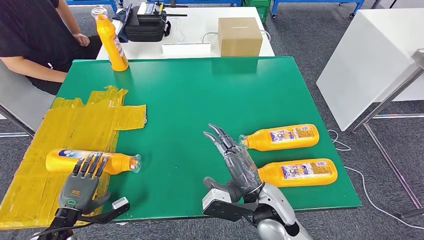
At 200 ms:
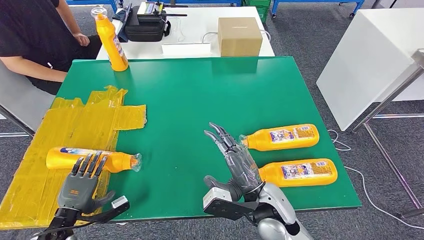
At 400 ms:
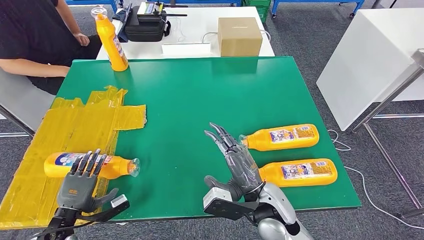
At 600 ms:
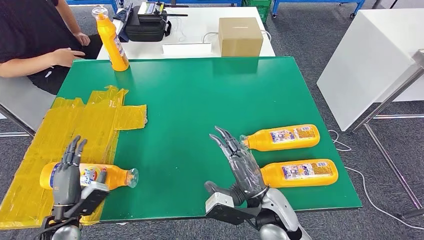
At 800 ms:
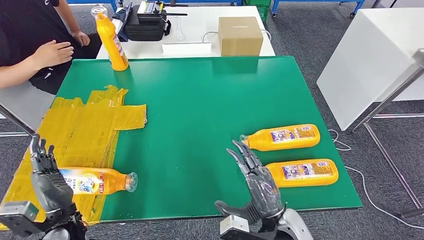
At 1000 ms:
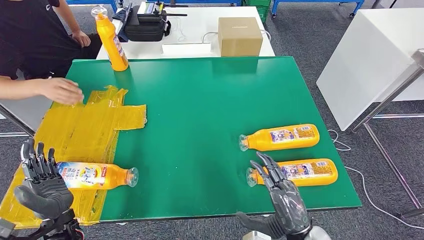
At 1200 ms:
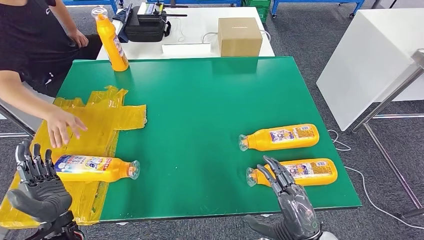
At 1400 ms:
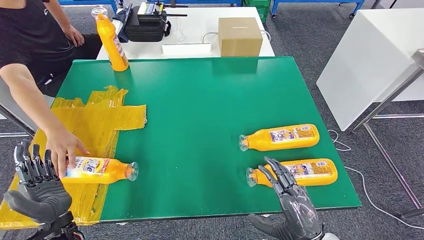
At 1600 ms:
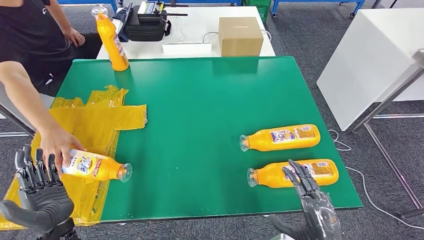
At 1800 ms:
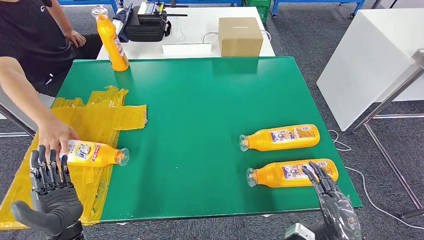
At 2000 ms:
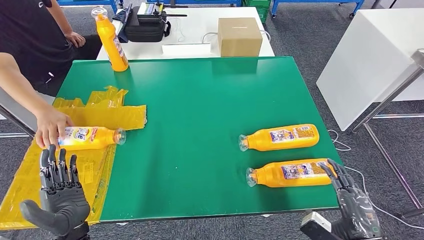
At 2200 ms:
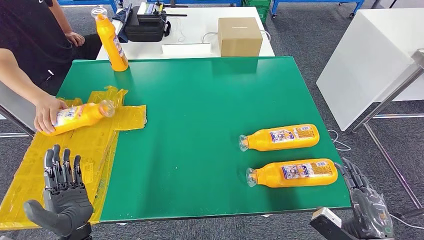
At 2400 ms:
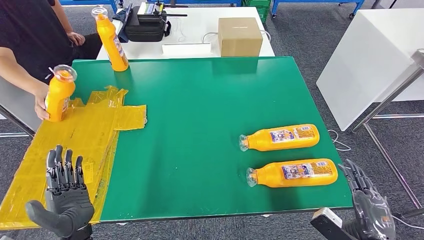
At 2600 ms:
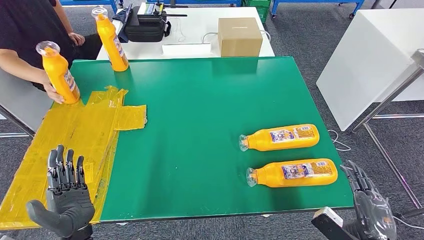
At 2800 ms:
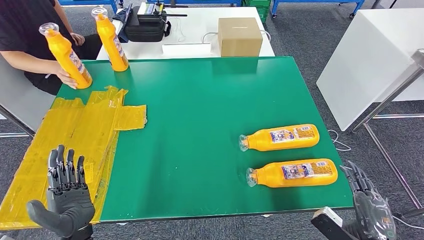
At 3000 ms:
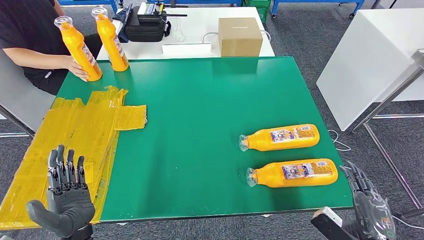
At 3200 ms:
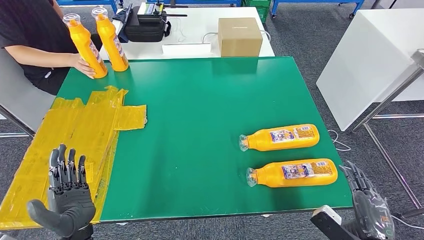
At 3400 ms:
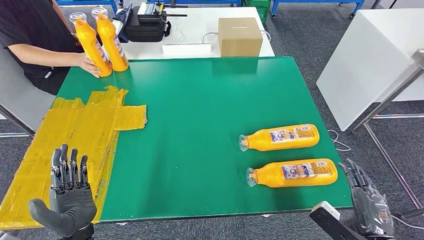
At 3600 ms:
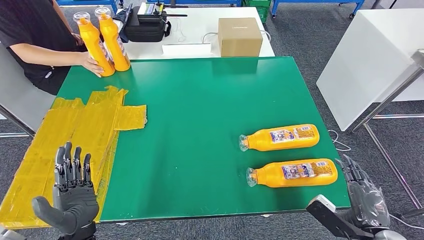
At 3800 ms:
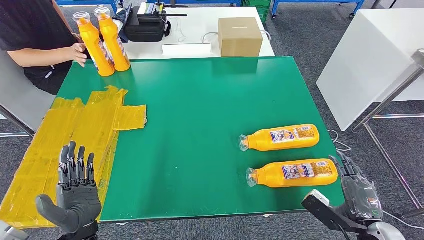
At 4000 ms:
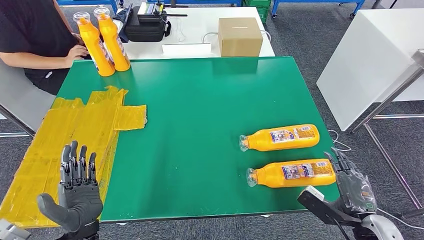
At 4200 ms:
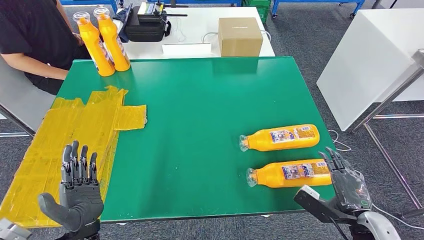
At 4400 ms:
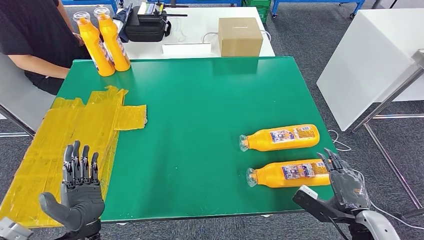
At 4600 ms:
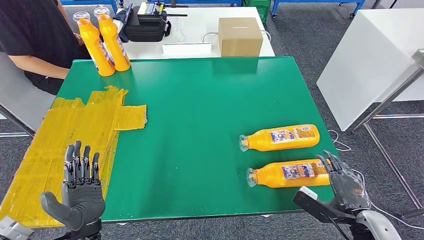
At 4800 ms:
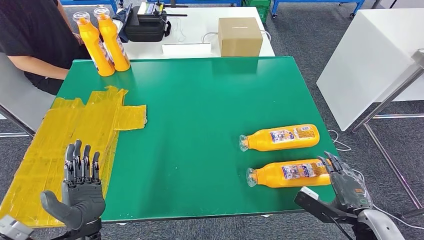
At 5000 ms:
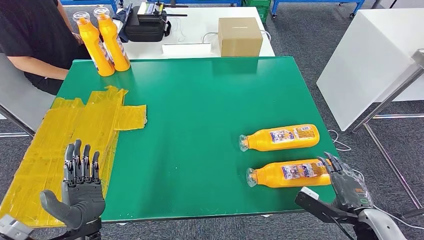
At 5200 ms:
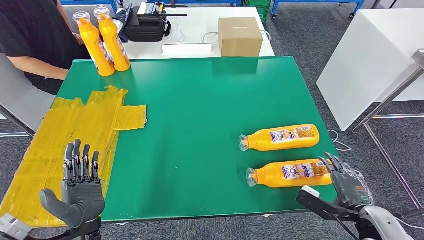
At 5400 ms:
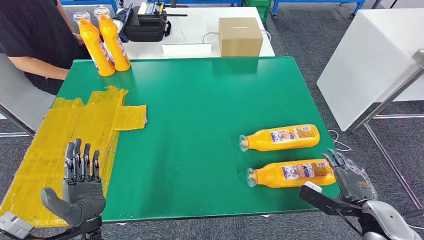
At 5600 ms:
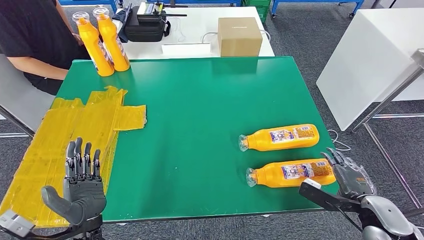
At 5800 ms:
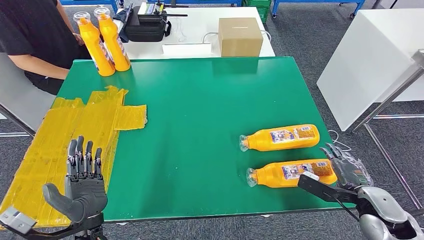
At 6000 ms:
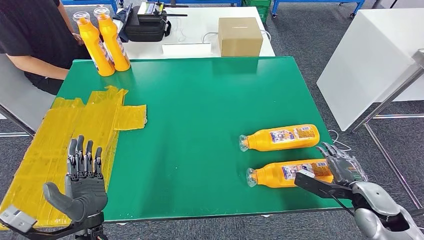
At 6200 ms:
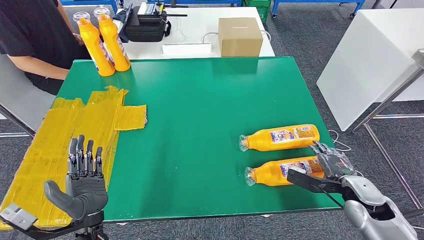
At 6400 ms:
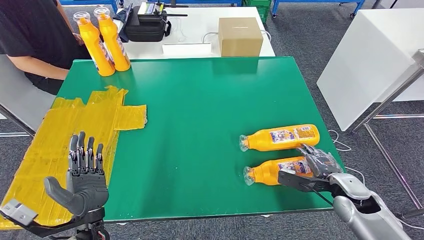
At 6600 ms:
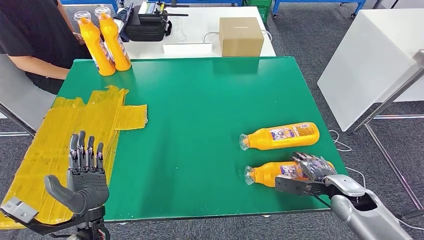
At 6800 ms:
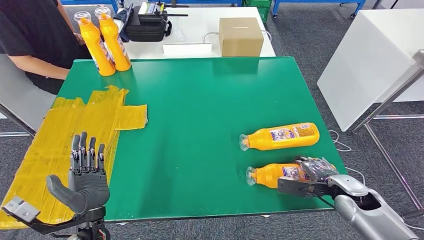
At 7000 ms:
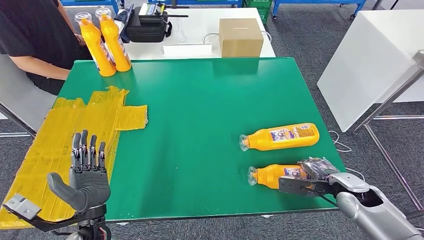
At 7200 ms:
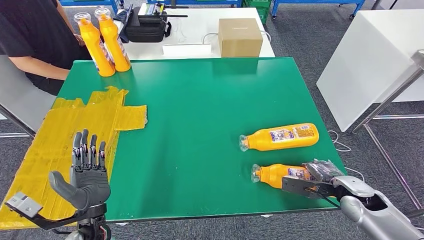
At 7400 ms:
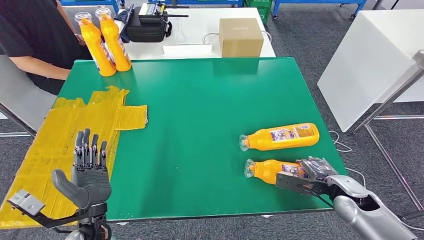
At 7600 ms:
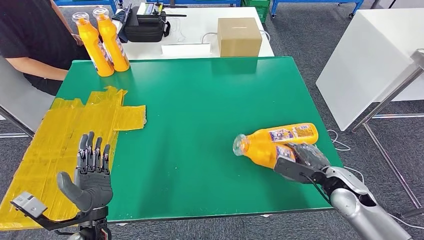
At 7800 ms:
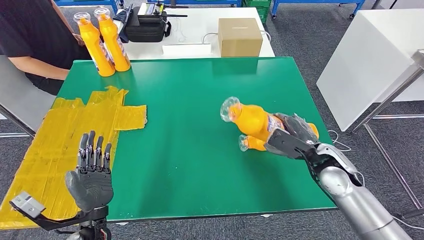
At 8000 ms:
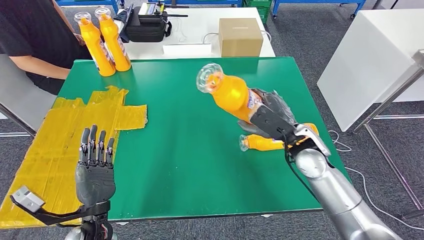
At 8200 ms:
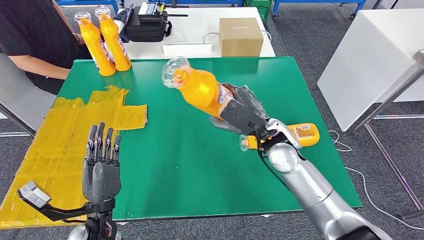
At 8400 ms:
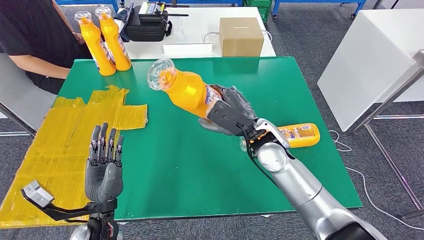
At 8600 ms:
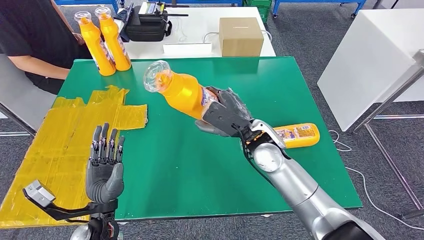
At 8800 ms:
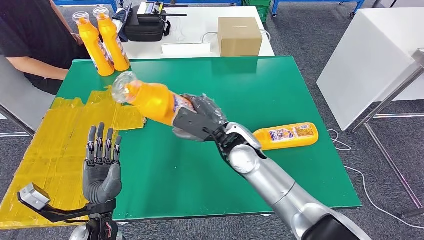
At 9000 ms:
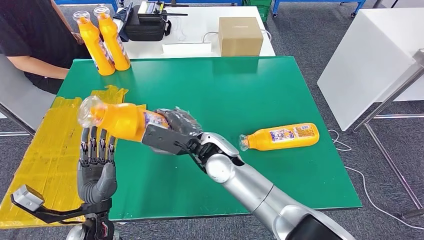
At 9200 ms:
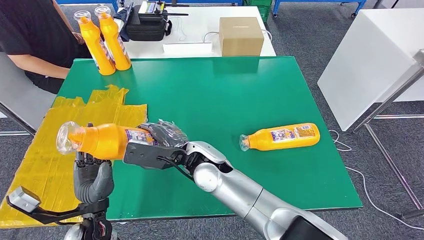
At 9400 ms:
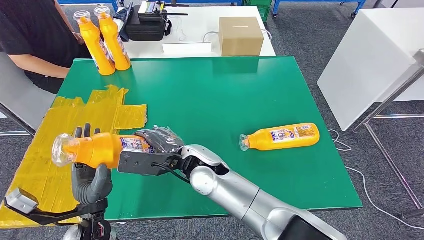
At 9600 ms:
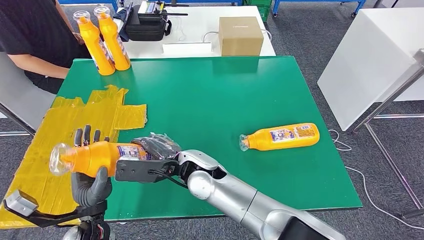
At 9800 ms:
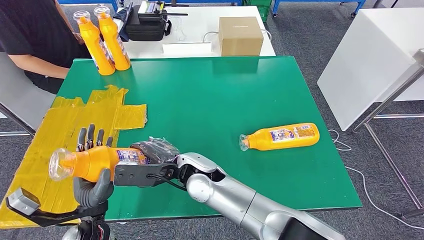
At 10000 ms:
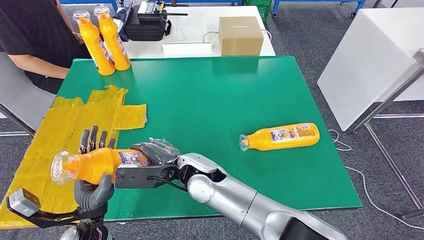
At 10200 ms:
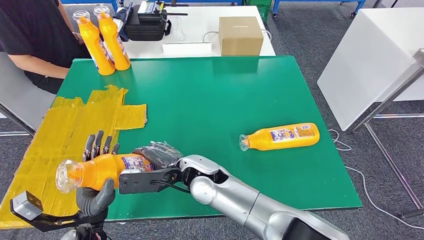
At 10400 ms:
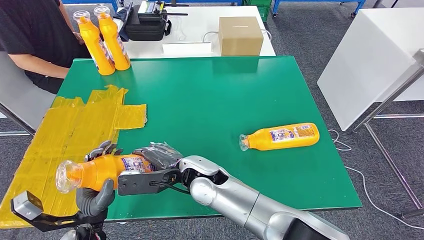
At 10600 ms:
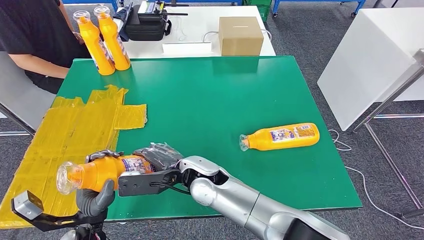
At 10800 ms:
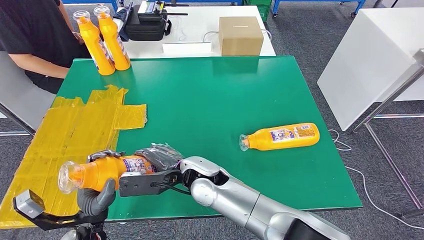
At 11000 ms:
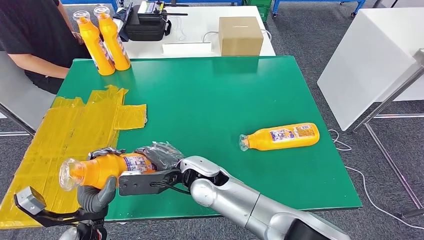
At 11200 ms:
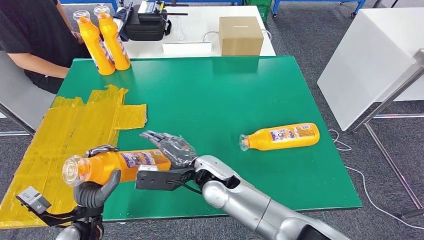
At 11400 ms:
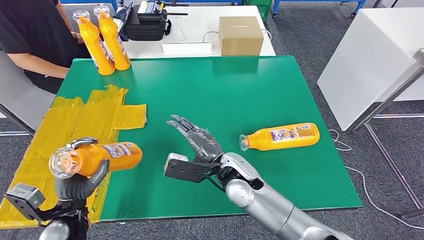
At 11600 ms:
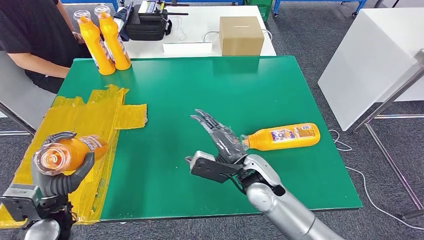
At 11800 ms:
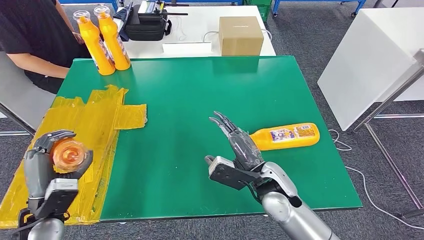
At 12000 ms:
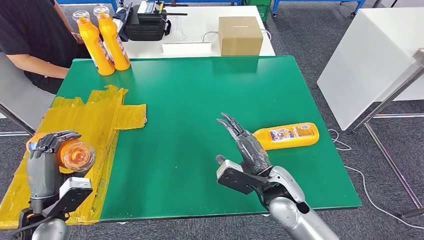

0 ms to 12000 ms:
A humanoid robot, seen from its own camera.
Step, 800 ms to 9600 ms: Pick up the fast-moving consumer goods bottle from the table.
0 ms to 1600 ms: The right hand shifts about 20 cm to the right and backward. Meanwhile the left hand moves to the right and upward, about 10 cm.
1600 ms to 3000 ms: The right hand travels to the right by about 10 cm.
3000 ms to 4400 ms: The right hand goes roughly 5 cm forward.
4400 ms to 6000 ms: The right hand moves forward, roughly 5 cm.
6000 ms to 7600 ms: The right hand moves to the left, approximately 5 cm.
9000 ms to 10400 ms: The right hand moves some 5 cm.
10400 ms to 12000 ms: The left hand travels to the left by some 10 cm, while the right hand shifts about 20 cm to the right.

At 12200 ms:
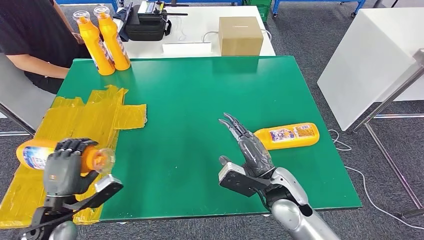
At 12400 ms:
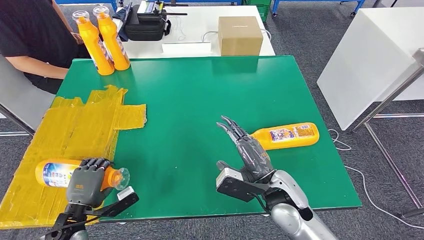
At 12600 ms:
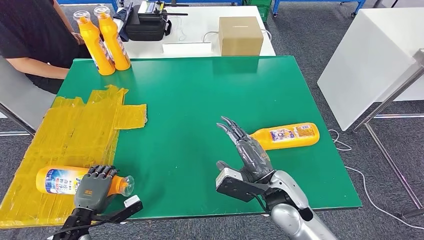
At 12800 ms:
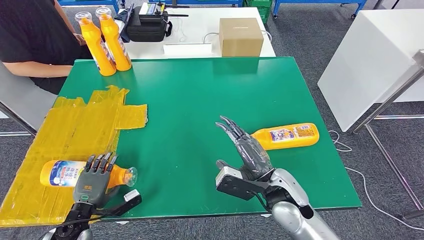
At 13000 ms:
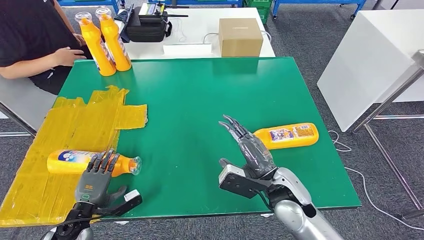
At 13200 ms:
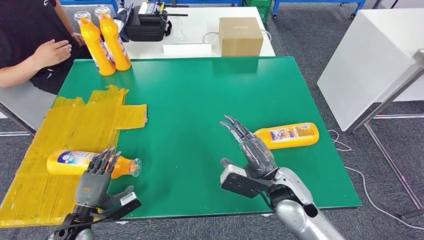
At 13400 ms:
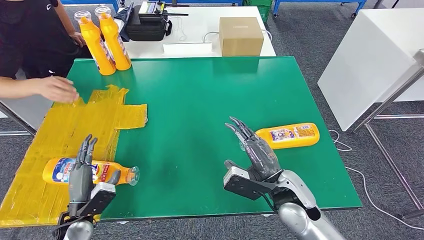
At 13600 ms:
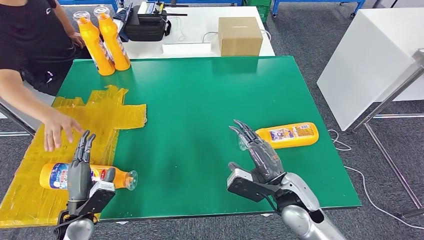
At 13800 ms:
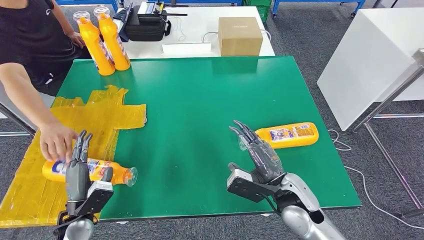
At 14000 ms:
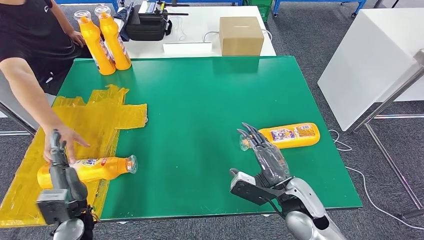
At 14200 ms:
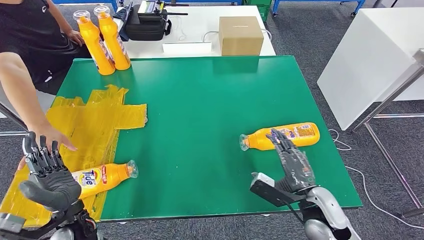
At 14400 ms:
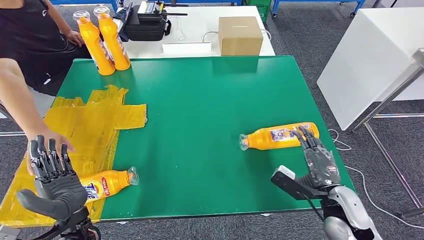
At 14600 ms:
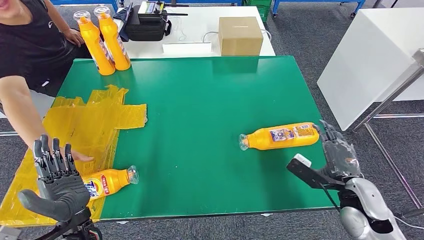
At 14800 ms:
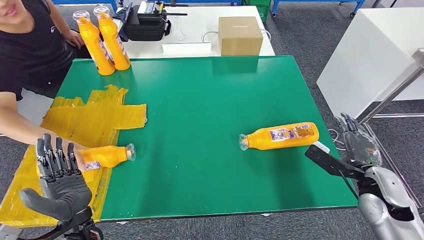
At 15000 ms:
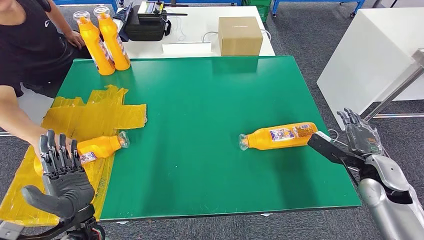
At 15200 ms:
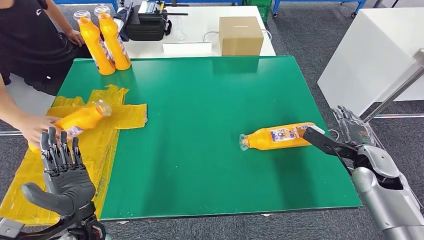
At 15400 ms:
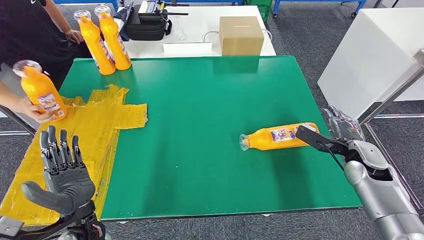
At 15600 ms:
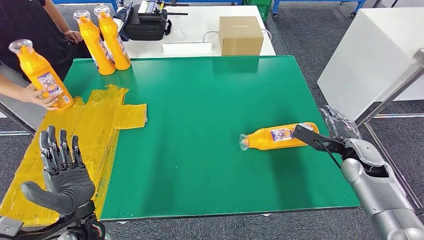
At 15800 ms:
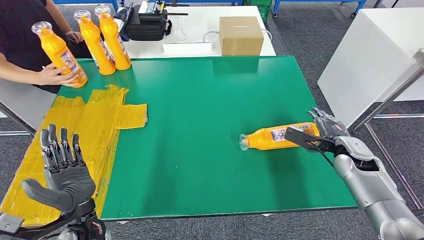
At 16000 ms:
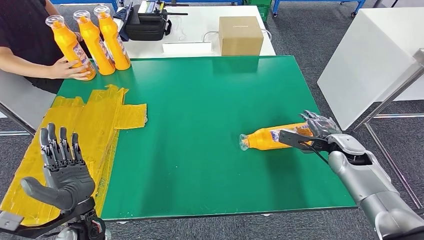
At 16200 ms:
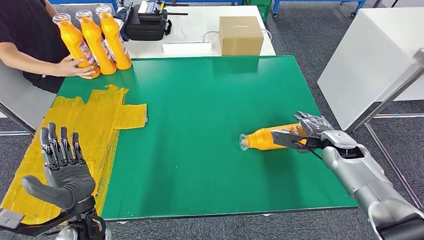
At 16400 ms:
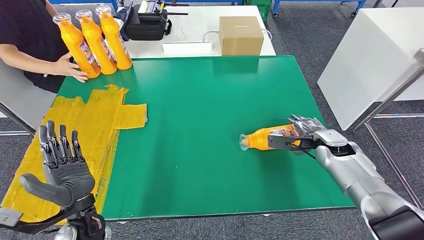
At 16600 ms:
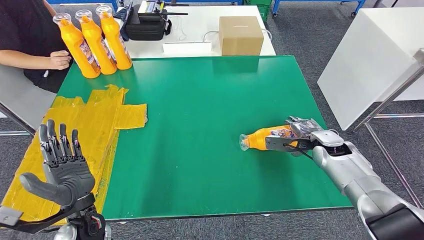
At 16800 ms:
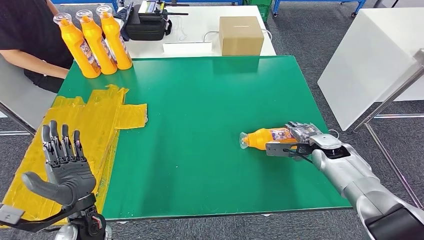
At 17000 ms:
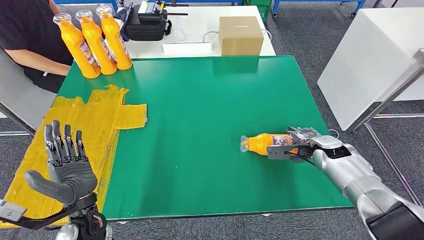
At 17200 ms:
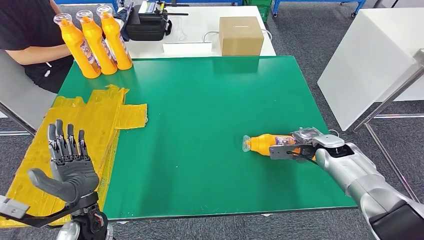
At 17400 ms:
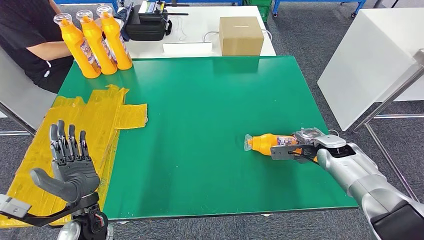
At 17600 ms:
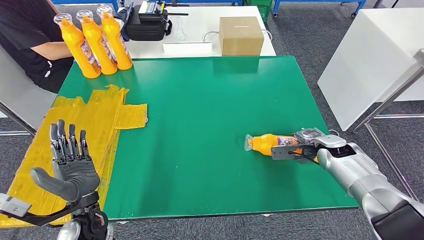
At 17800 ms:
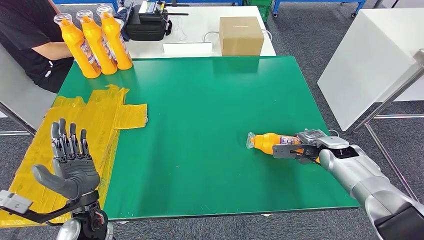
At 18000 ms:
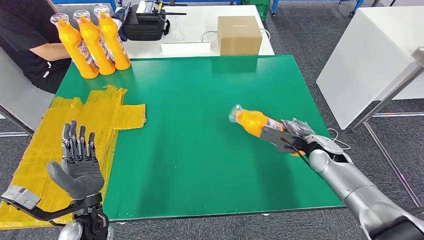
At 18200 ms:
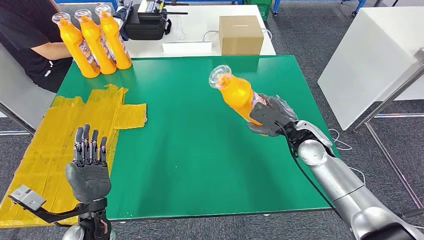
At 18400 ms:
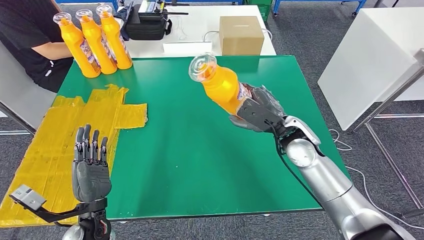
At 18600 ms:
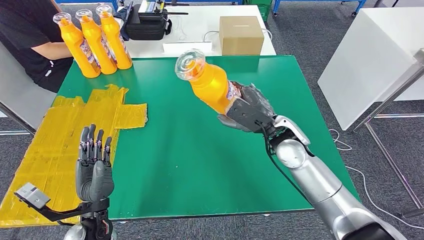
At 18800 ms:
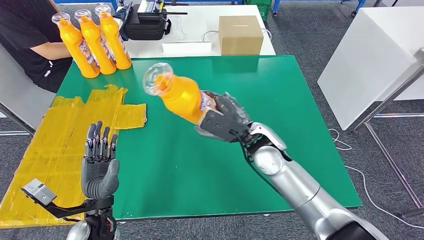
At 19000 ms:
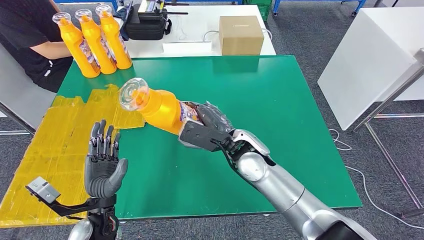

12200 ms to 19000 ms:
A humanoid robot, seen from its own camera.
12200 ms to 13600 ms: The left hand shifts roughly 5 cm downward.
